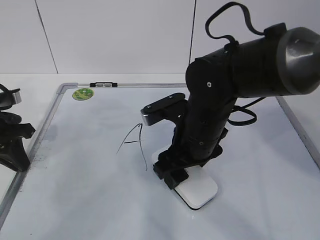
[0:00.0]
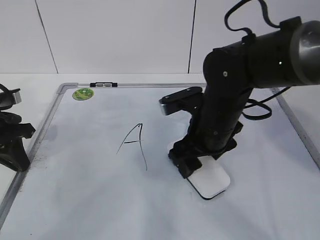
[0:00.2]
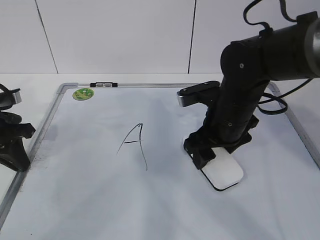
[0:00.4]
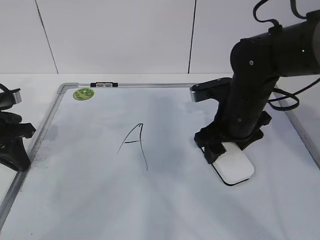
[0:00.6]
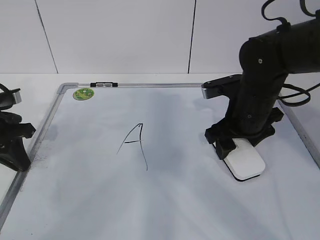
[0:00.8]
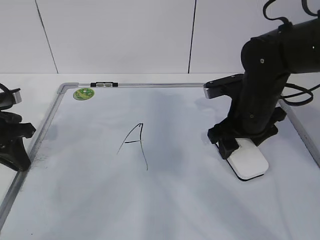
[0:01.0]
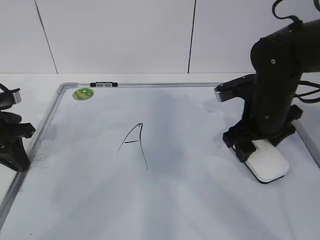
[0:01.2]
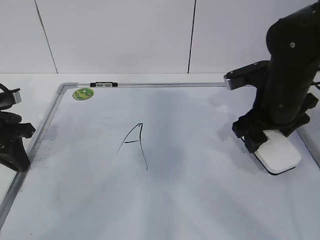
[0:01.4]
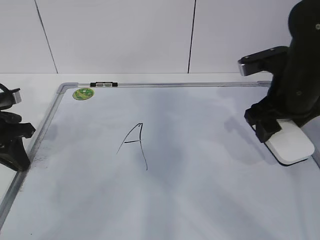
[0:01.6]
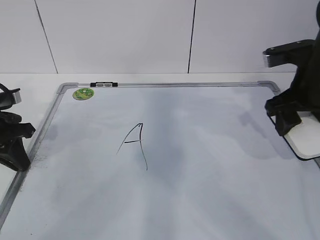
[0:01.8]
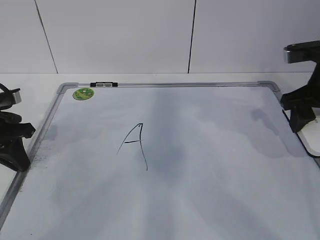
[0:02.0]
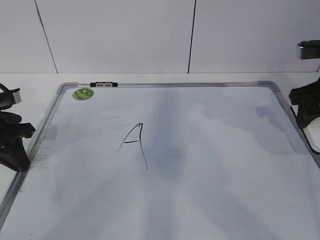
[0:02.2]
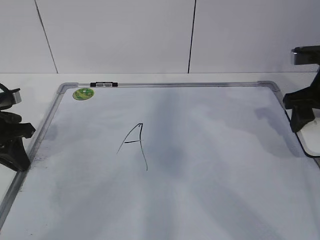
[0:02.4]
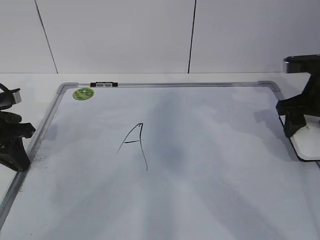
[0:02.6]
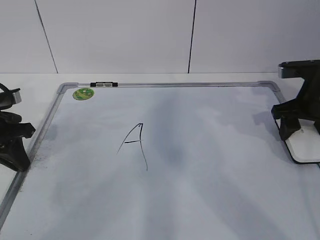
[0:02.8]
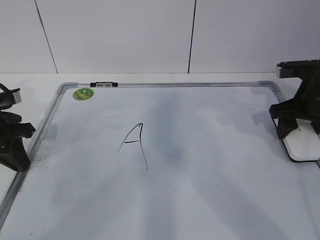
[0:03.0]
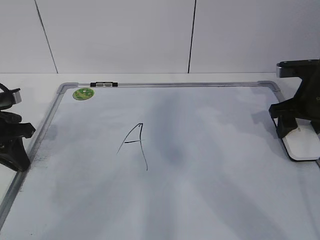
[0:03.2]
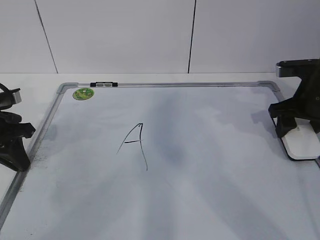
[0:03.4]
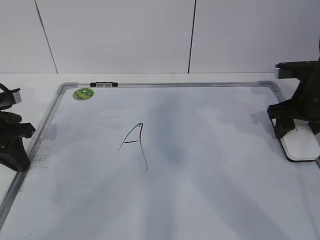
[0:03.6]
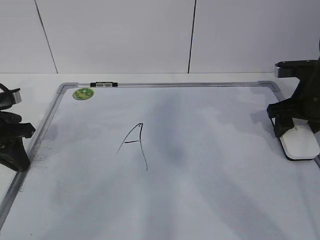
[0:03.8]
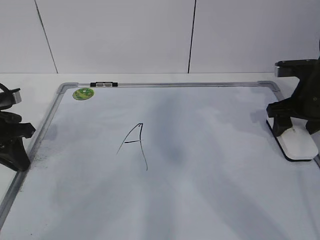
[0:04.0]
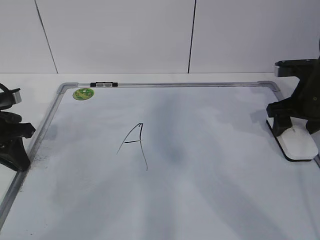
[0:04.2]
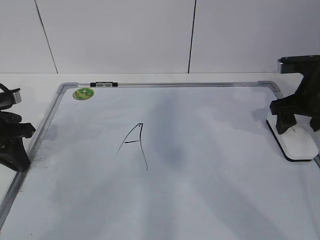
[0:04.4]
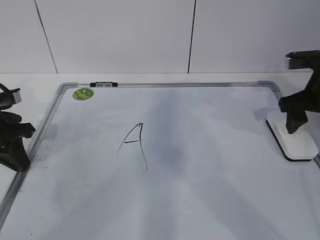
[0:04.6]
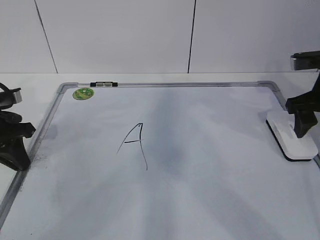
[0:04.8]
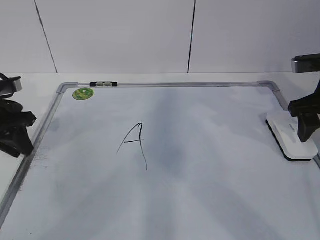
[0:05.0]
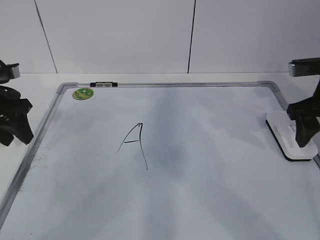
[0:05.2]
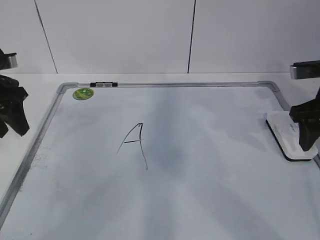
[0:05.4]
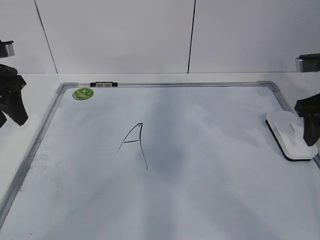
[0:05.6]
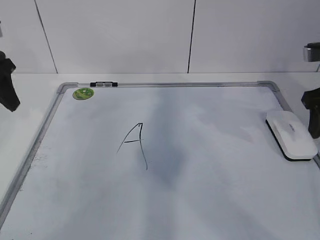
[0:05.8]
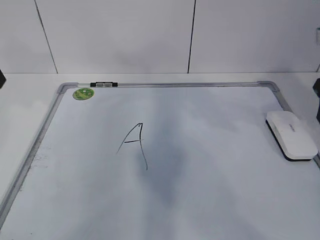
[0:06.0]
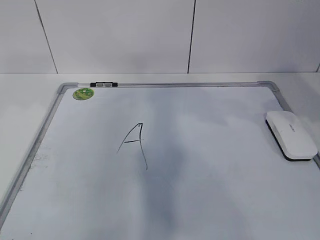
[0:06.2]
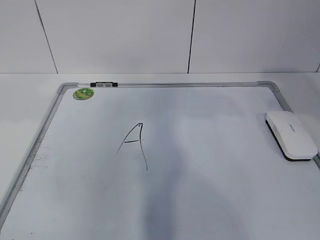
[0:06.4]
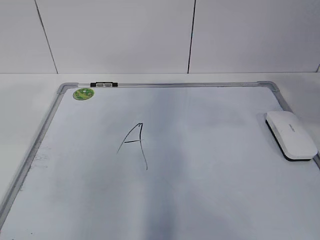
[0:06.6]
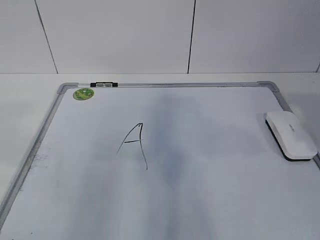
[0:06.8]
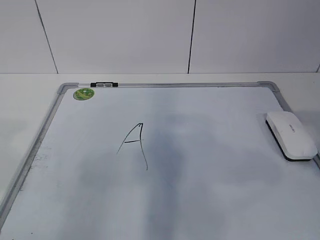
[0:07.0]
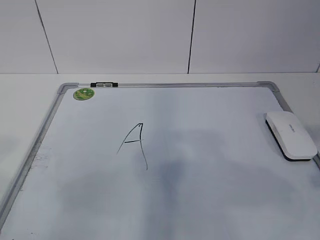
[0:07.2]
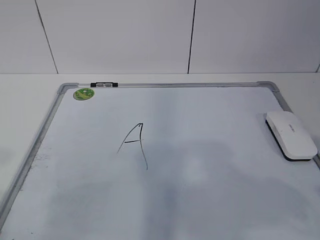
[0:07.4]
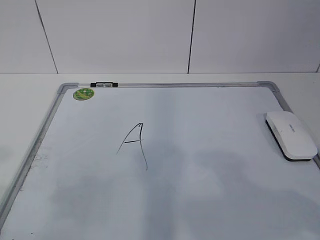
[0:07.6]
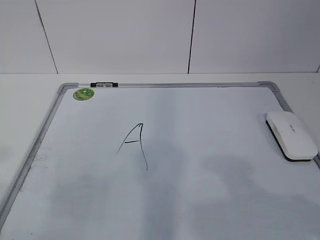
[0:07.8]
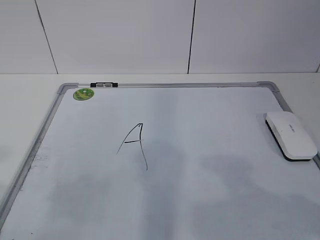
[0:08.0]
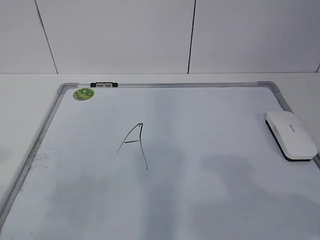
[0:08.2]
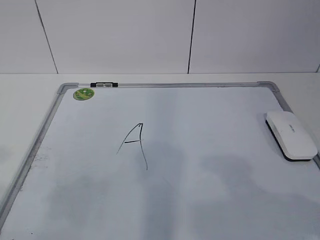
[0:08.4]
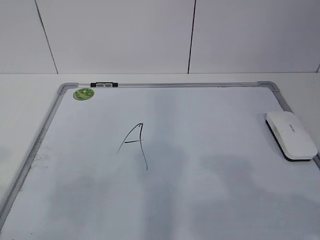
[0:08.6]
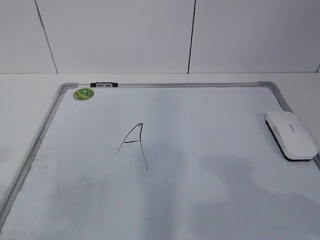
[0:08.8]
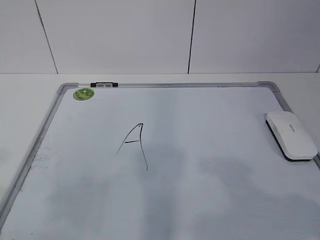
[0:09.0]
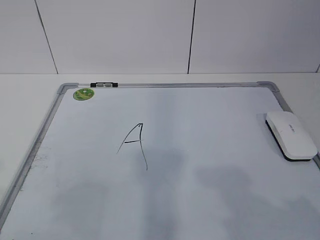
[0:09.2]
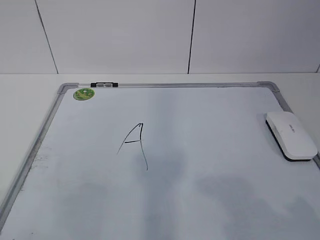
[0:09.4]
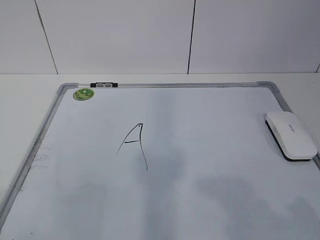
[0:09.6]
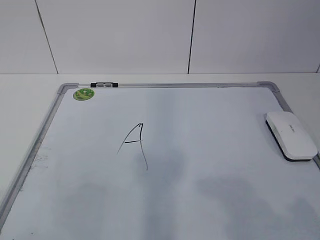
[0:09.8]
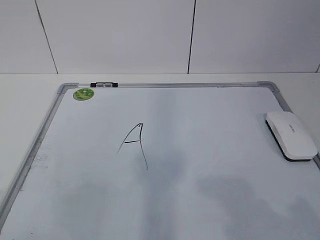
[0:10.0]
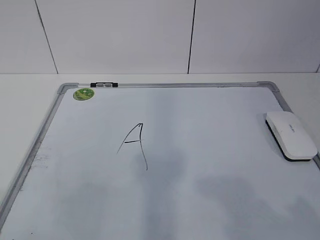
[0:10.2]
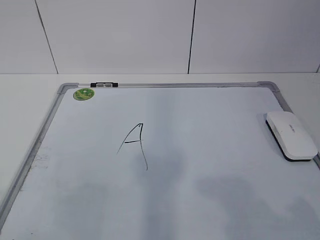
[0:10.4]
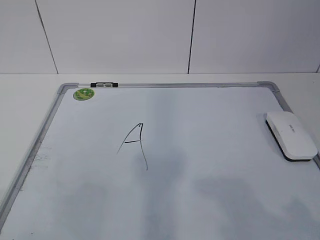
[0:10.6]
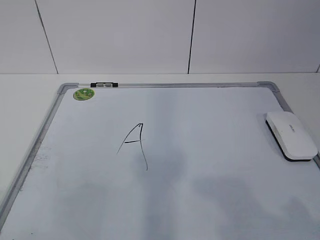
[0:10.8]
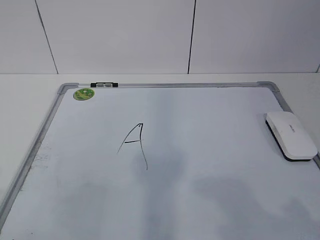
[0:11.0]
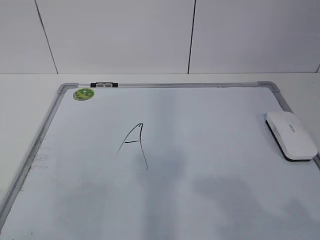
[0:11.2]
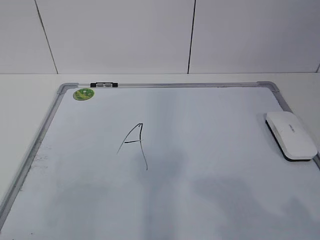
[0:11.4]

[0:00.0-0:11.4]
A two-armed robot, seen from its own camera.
Task of the whole recording: pick up the eraser on the blackboard and erase the letter "a".
0:00.0 to 0:01.4: The right gripper shifts approximately 10 cm to the right.
0:01.4 to 0:02.8: The right gripper moves to the right, about 10 cm.
0:02.8 to 0:04.2: The right gripper opens up.
0:04.2 to 0:05.6: The left gripper travels upward by some 10 cm, and opens up, while the right gripper heads upward and backward, covering roughly 10 cm.
0:05.6 to 0:07.2: Both grippers move backward, roughly 30 cm.
0:10.0 to 0:11.4: Both grippers stay put.

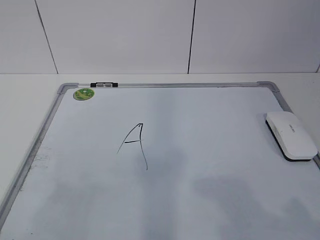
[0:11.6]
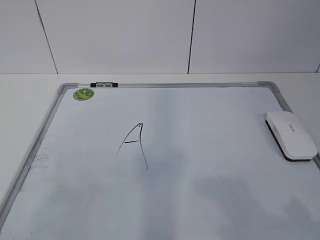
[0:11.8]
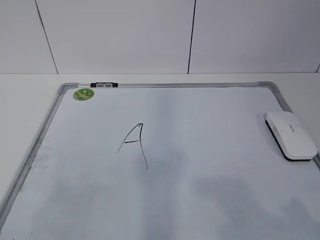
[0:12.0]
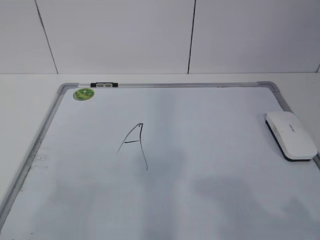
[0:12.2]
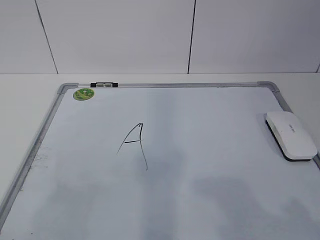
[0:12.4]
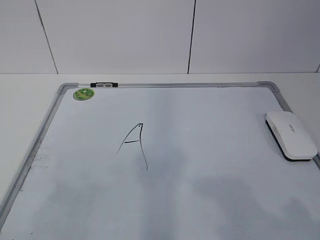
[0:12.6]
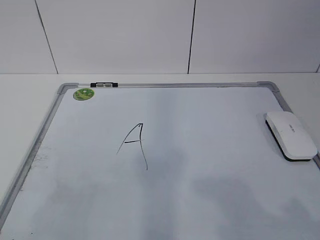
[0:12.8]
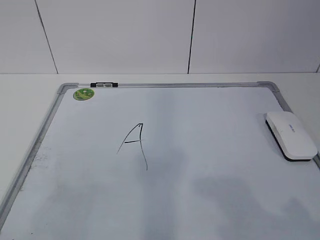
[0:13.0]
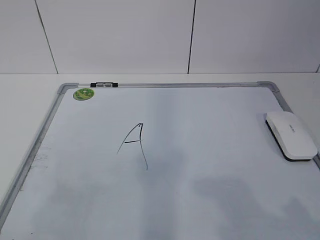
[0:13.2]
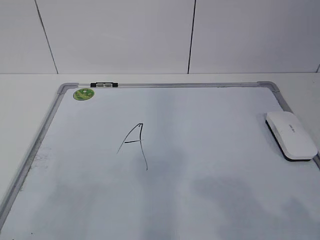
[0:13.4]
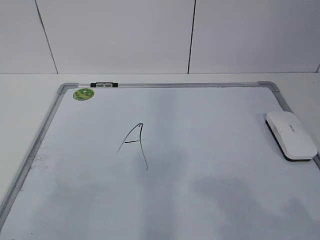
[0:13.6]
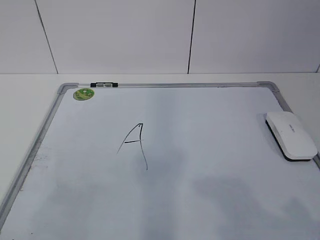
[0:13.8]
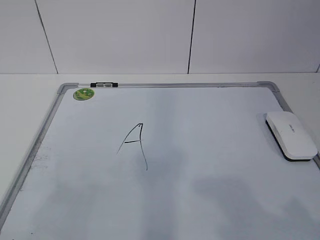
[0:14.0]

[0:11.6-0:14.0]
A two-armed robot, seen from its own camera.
Task of the whole recording: pick up the eraser on the blackboard and erase the letter "a".
0:11.6 to 0:14.0: Neither gripper changes place.
